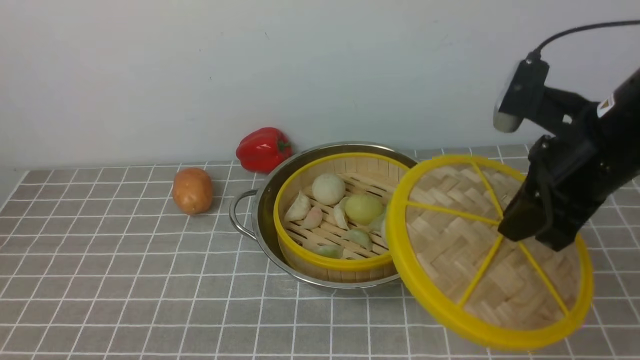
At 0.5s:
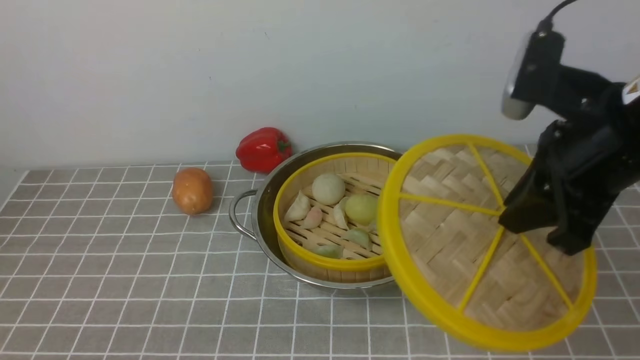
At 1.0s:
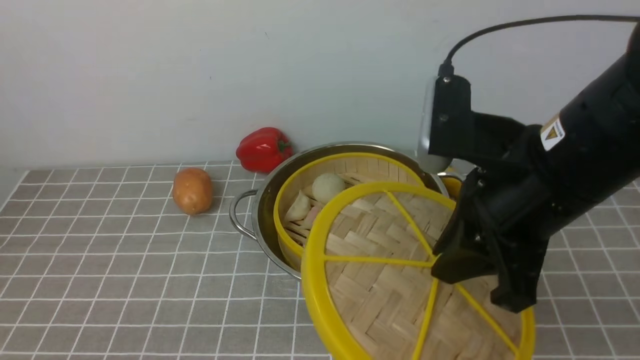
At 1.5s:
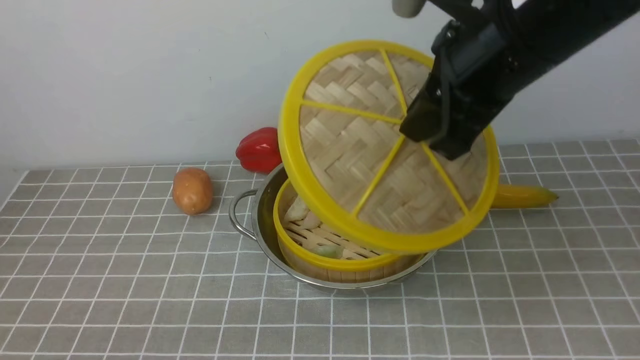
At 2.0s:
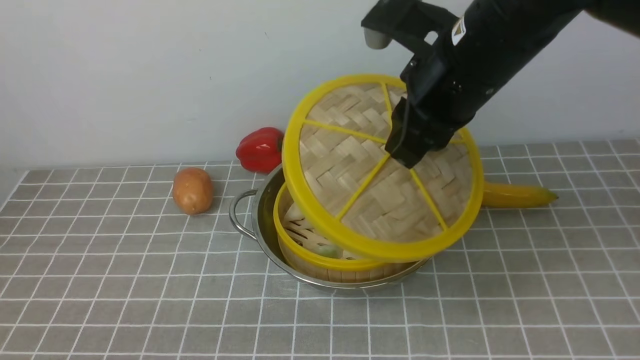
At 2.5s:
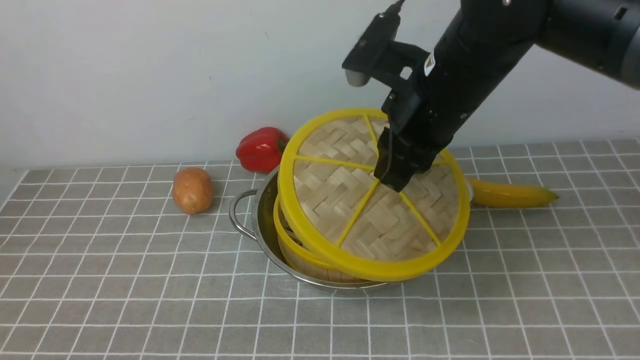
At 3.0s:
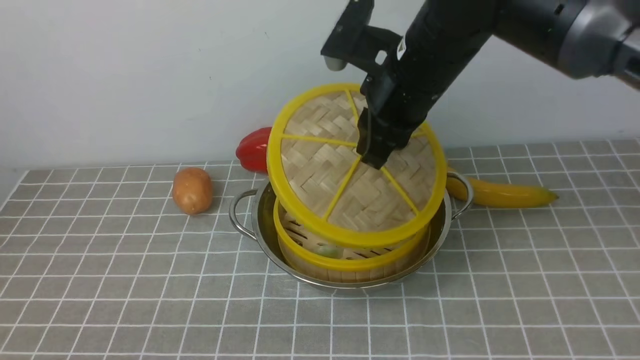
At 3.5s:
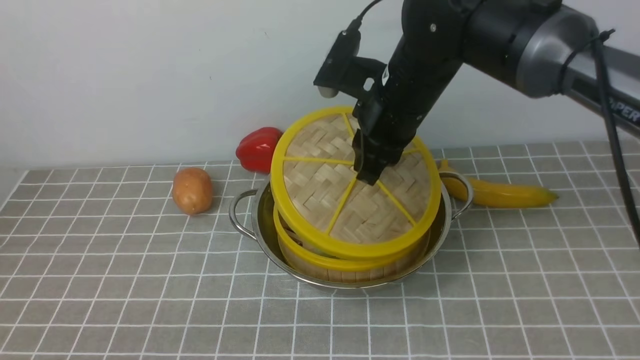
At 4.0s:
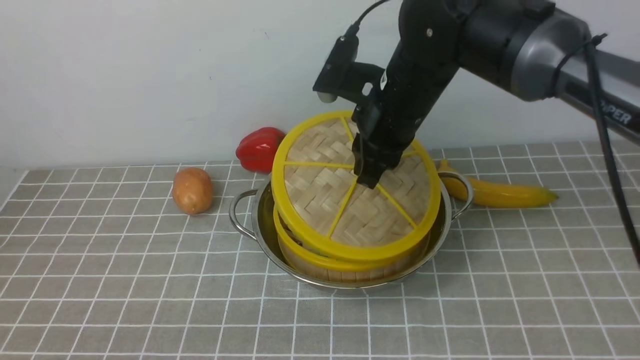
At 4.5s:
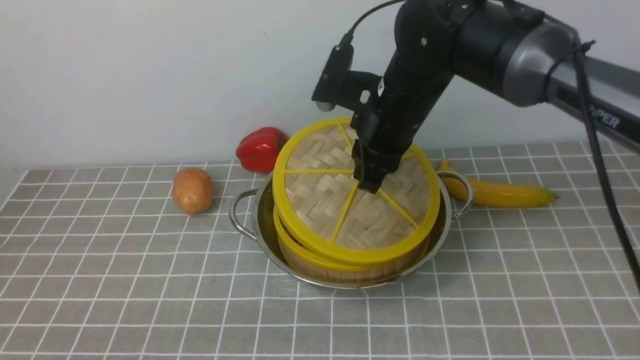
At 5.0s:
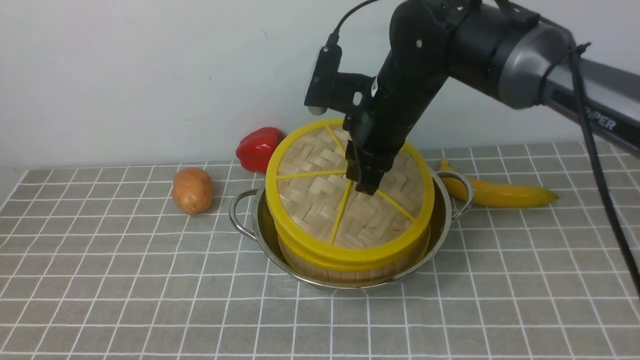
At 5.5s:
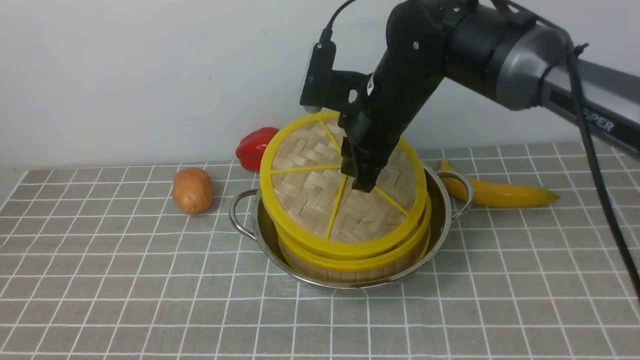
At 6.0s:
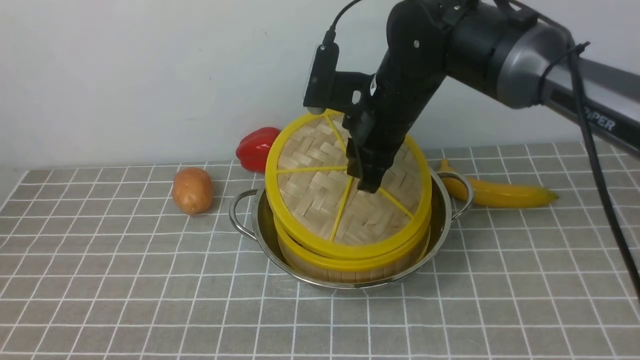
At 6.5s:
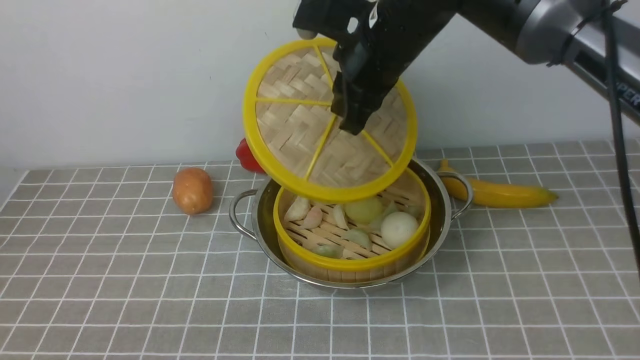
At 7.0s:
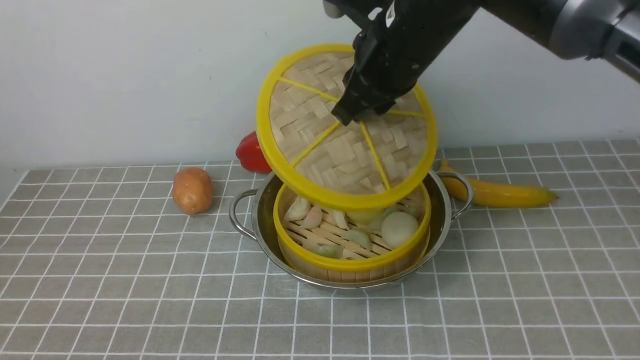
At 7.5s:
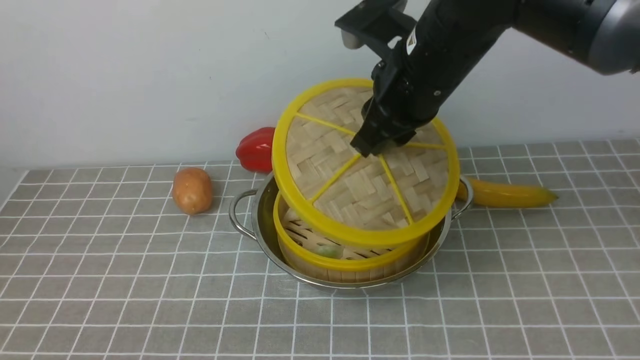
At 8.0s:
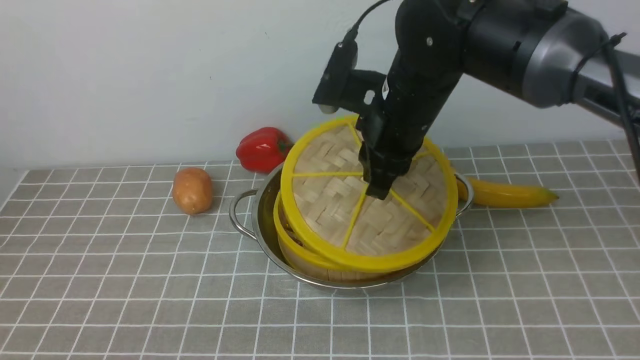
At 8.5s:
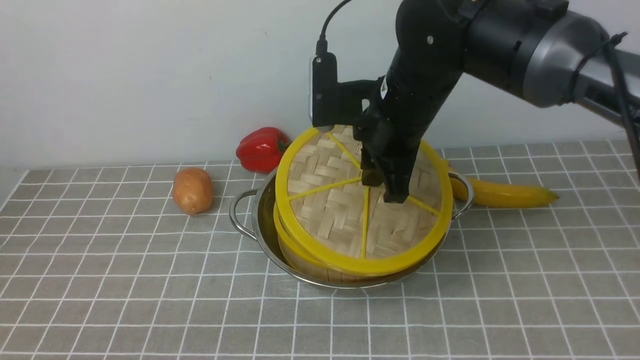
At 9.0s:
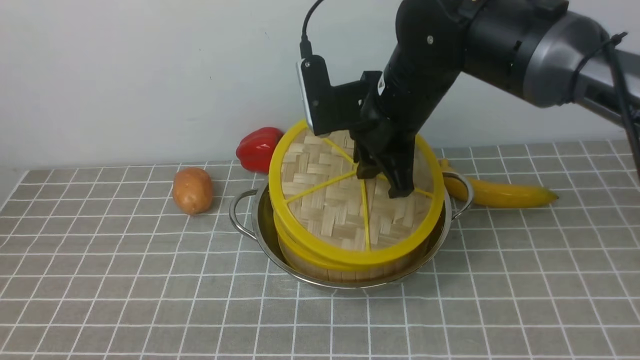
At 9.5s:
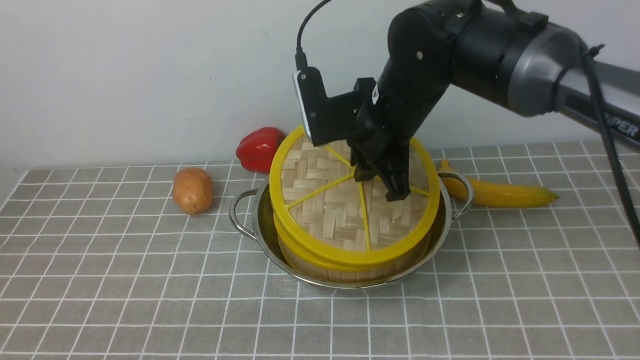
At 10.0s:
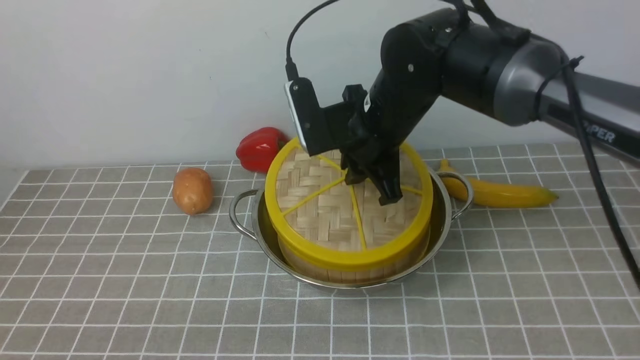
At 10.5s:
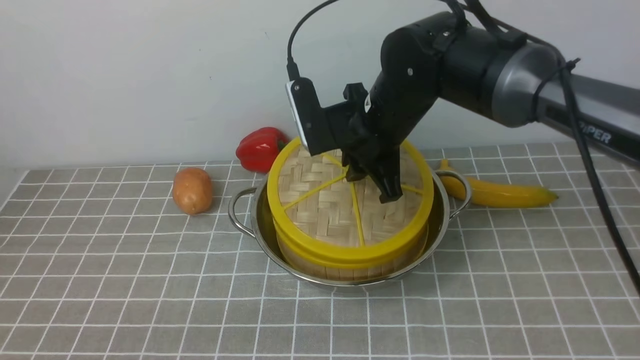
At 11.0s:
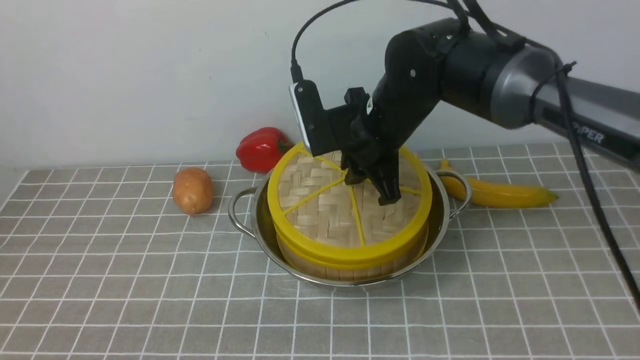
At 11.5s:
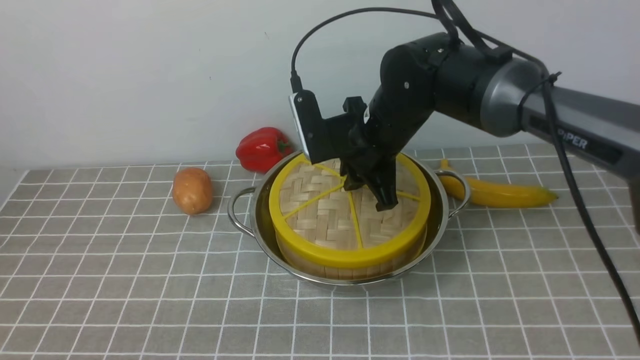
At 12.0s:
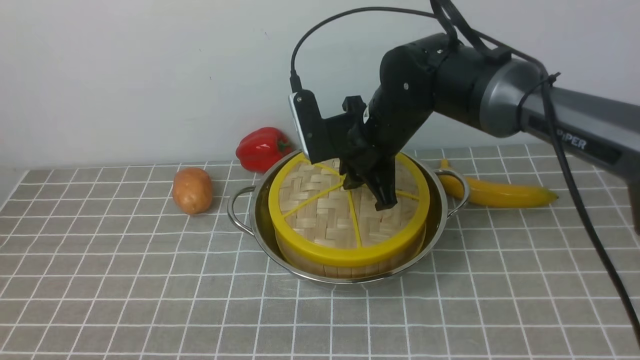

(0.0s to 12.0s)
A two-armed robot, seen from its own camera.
Task of the whole recording: place the steamer in the pot on the grey tablecloth, and put the lid on the steamer.
0.0s - 2.0s: The right gripper is displaced to the left by roughly 10 cm.
2.0s - 4.0s: The right gripper goes some 10 cm downward and forward.
4.0s - 6.0s: The grippers move only a little.
10.0s - 12.0s: The grippers move only a little.

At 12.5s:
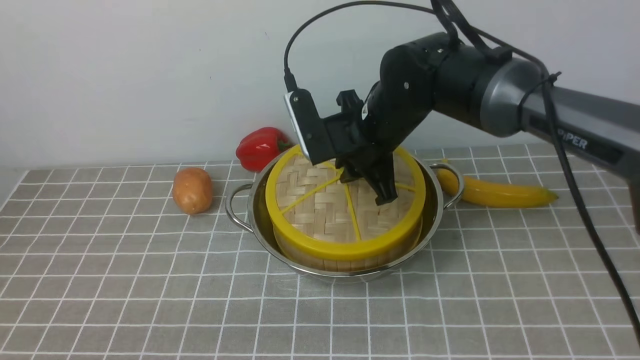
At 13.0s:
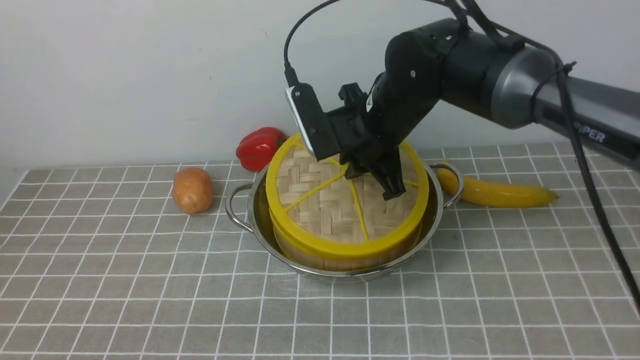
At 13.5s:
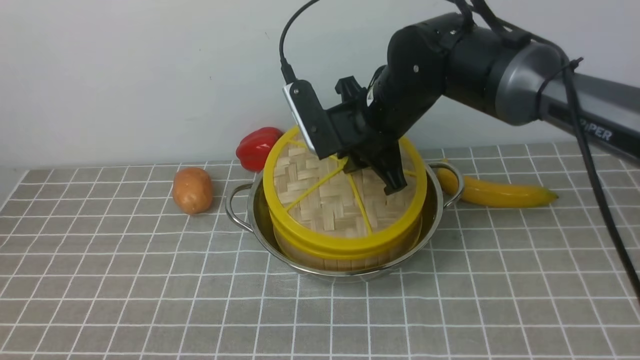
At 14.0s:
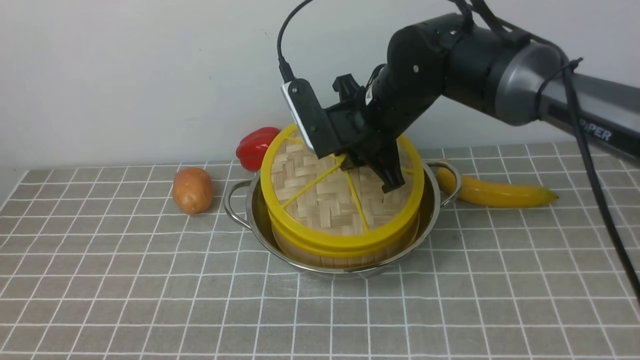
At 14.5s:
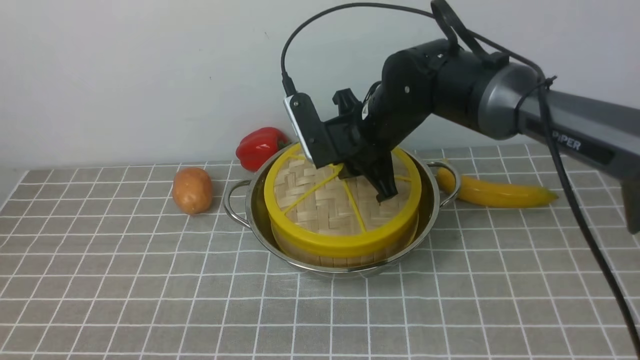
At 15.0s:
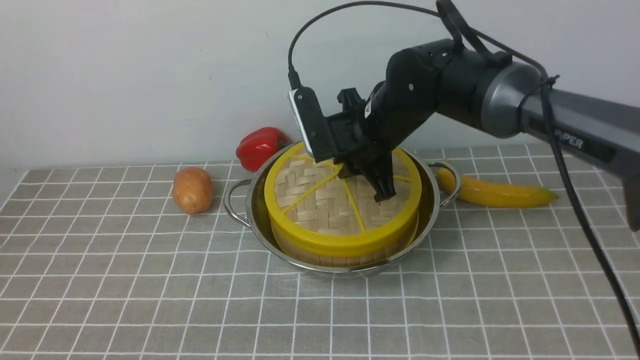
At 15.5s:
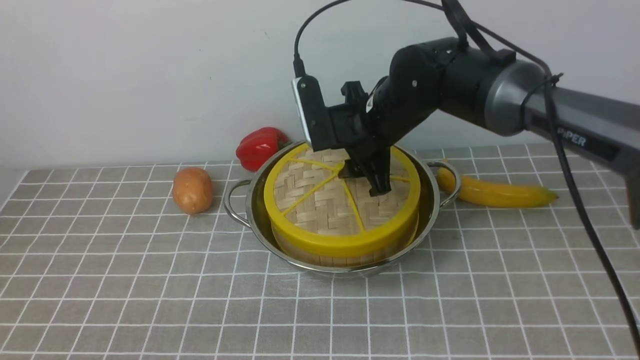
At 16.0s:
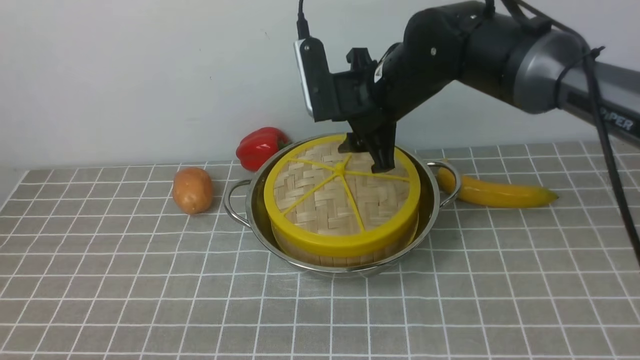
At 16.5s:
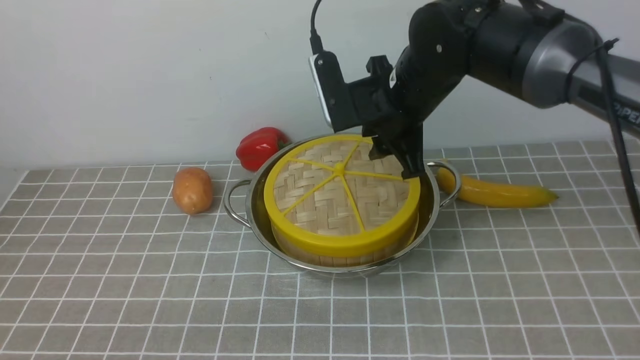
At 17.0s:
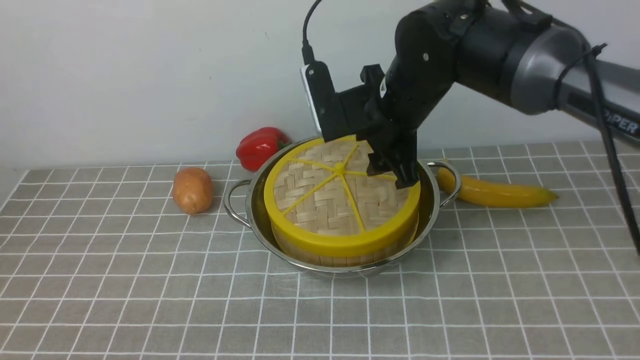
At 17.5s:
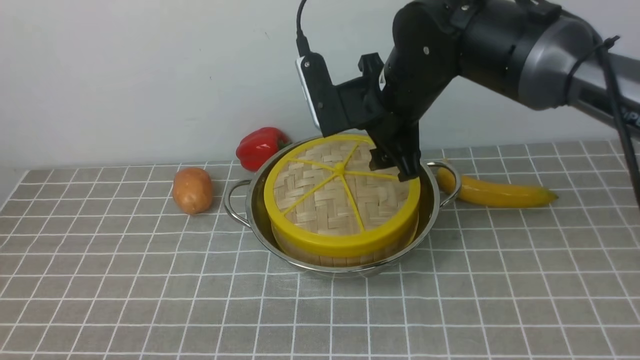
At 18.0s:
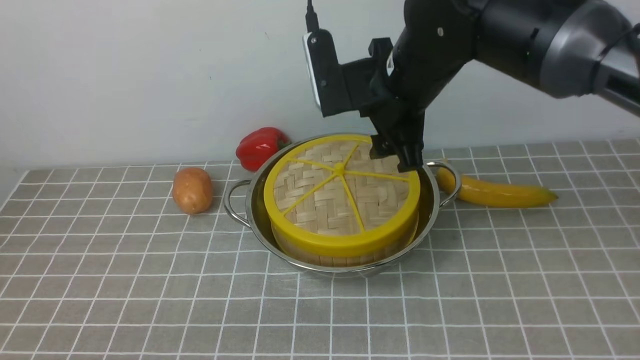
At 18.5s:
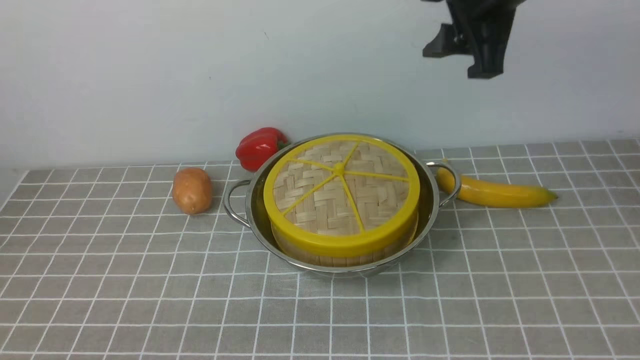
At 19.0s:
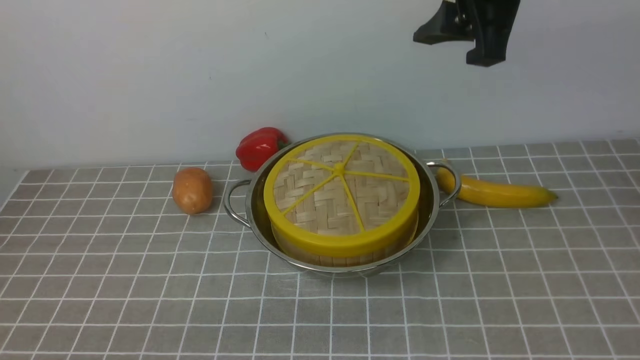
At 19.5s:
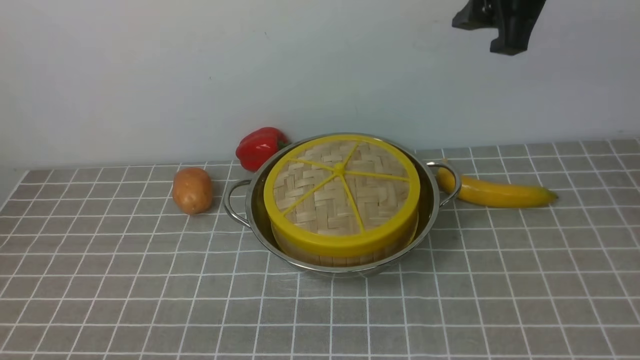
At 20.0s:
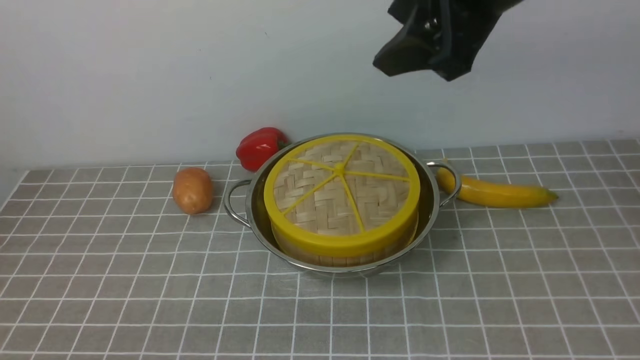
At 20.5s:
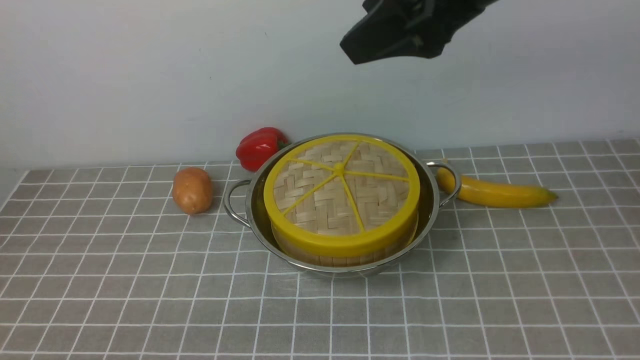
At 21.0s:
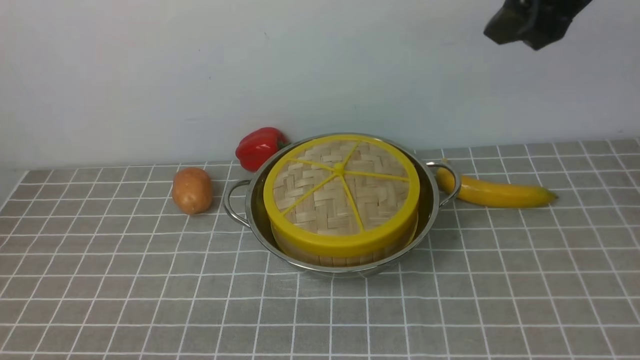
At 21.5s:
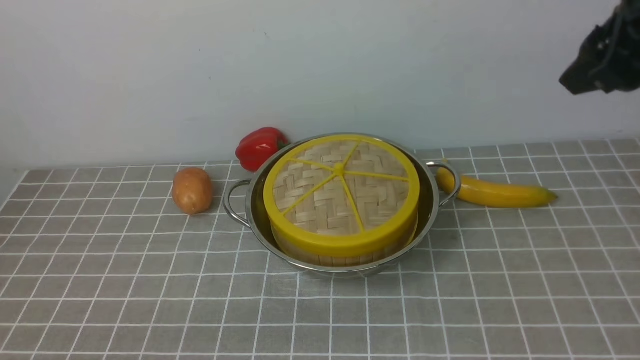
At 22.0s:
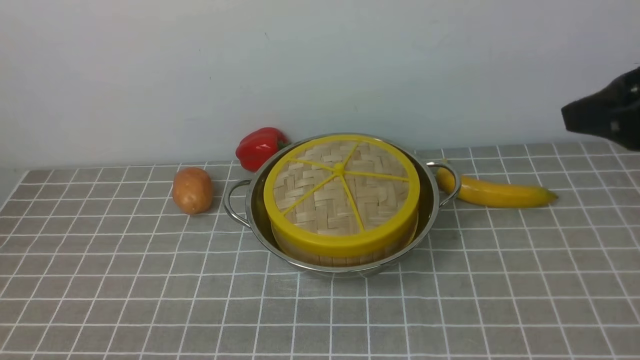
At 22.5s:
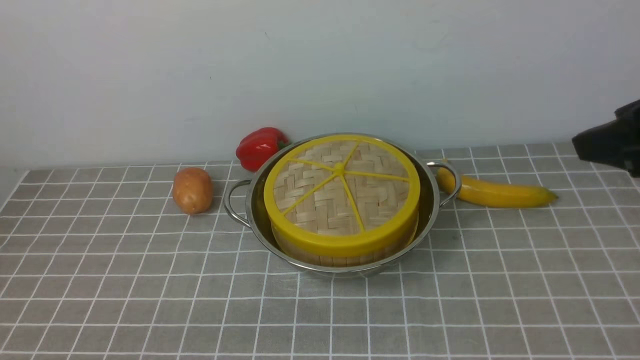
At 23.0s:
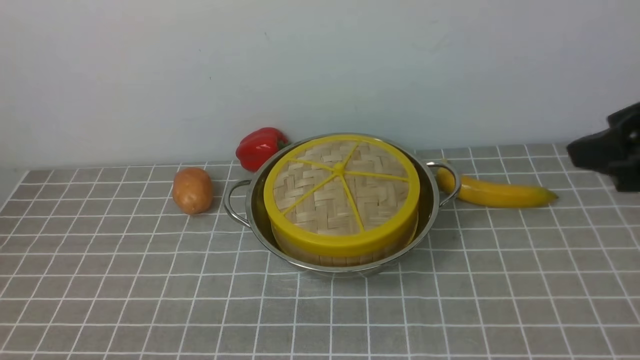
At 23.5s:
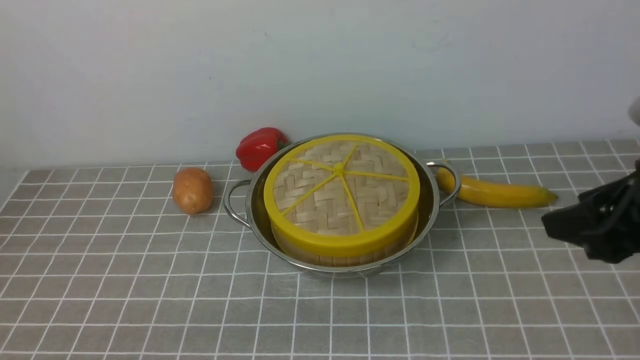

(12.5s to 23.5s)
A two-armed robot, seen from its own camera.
Task of the whole recording: place the steamer in the pot on the grey tablecloth, and put the lid on the steamer.
Step, 12.5s - 15.5s: use the right arm to place the steamer lid on the steamer.
12.5s - 14.5s: The grippers stay close to where they were, moving slightly.
14.5s - 16.0s: The right gripper opens.
16.0s - 18.0s: The right gripper shifts some 5 cm upward.
18.0s - 20.0s: The right gripper goes approximately 15 cm upward, backward and to the right.
20.0s - 21.5s: The right gripper moves to the right, roughly 10 cm.
21.5s - 23.5s: The right gripper shifts roughly 15 cm downward and backward.
